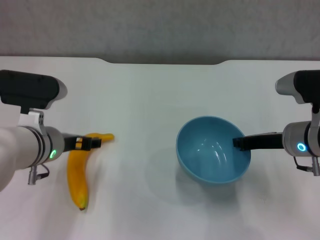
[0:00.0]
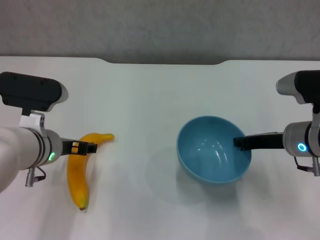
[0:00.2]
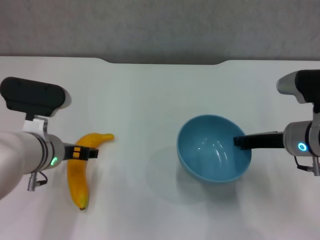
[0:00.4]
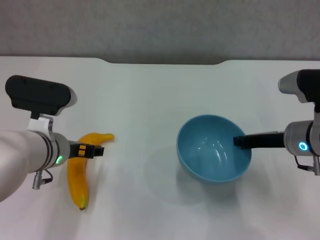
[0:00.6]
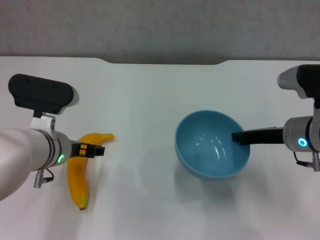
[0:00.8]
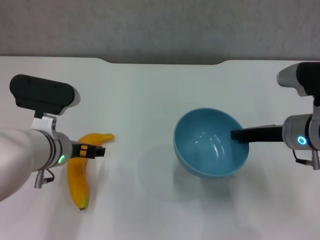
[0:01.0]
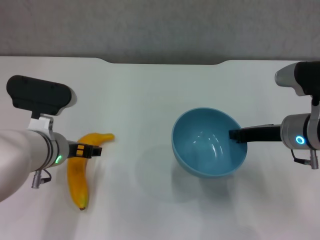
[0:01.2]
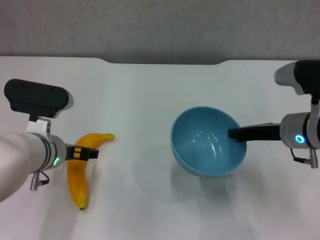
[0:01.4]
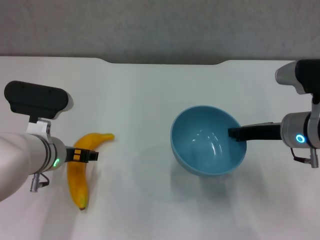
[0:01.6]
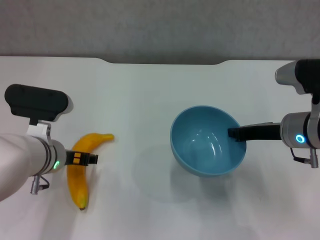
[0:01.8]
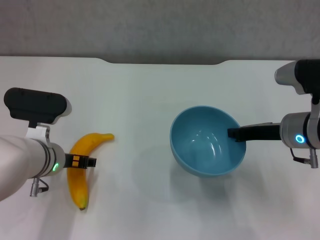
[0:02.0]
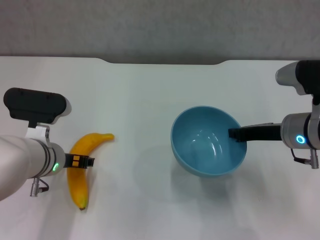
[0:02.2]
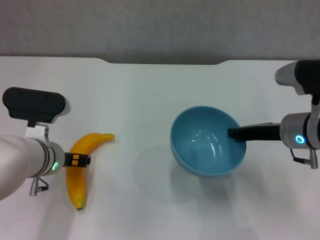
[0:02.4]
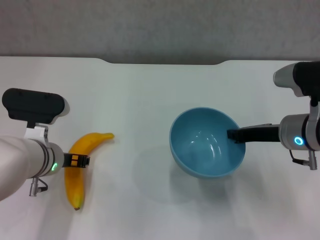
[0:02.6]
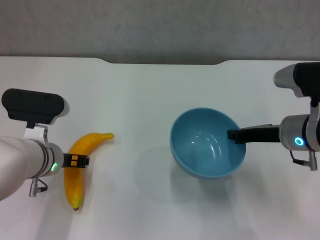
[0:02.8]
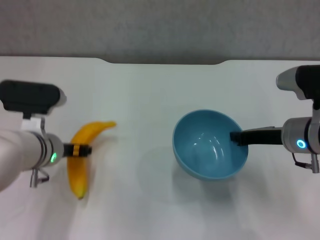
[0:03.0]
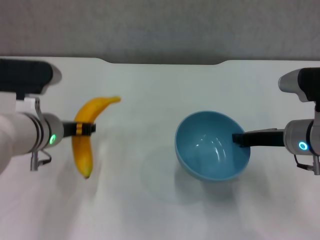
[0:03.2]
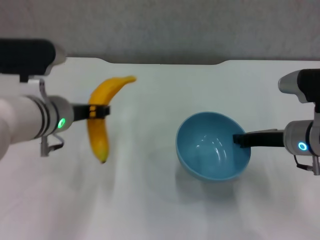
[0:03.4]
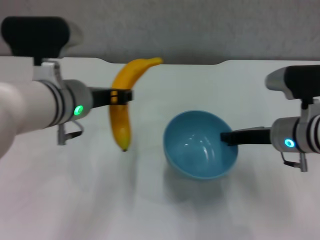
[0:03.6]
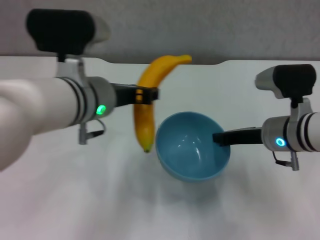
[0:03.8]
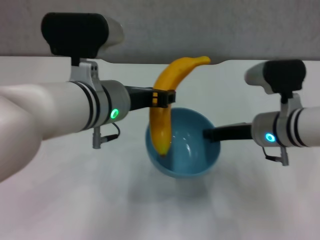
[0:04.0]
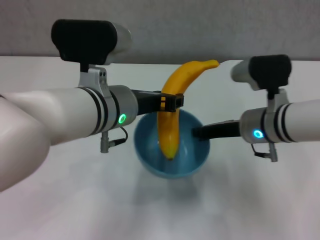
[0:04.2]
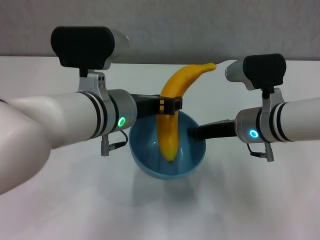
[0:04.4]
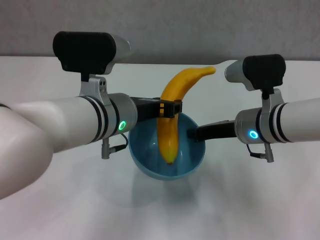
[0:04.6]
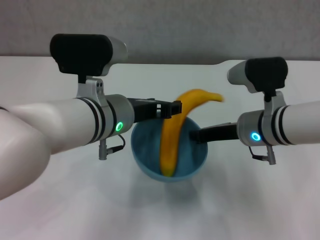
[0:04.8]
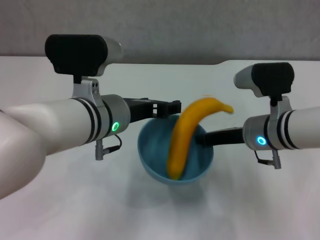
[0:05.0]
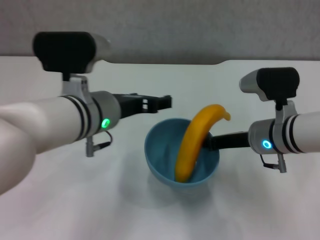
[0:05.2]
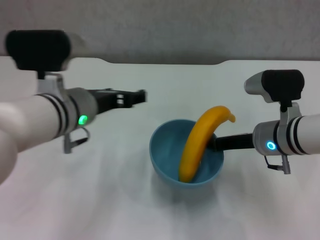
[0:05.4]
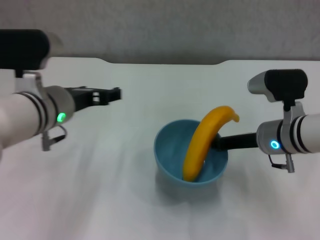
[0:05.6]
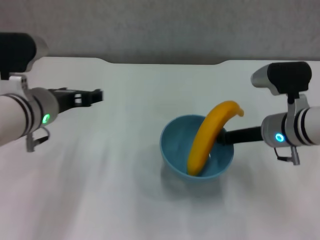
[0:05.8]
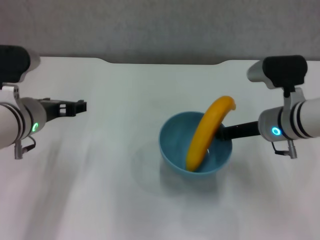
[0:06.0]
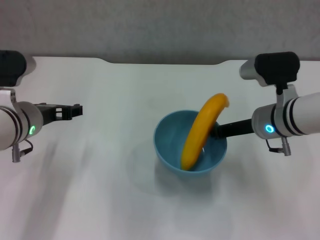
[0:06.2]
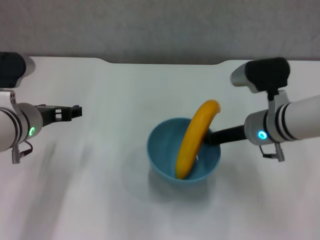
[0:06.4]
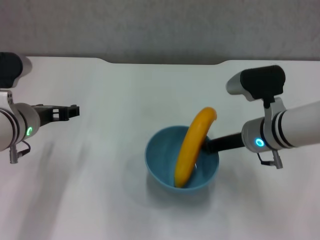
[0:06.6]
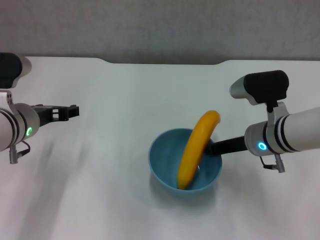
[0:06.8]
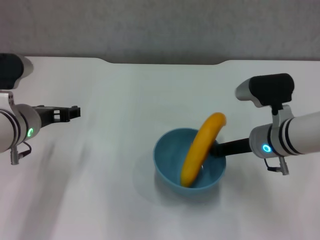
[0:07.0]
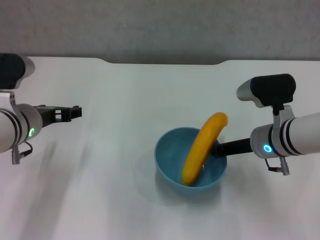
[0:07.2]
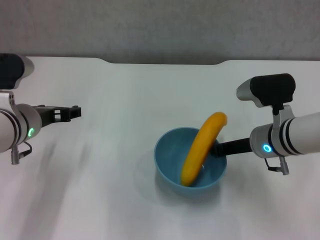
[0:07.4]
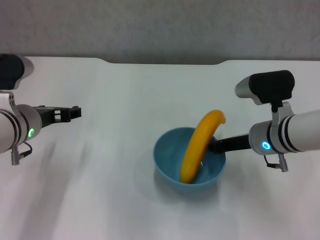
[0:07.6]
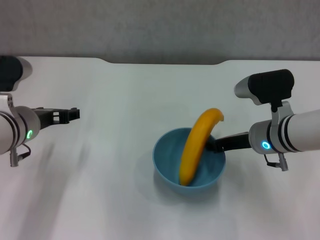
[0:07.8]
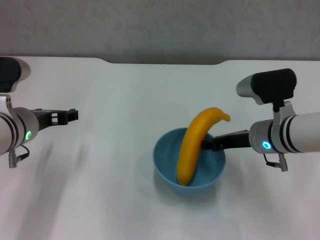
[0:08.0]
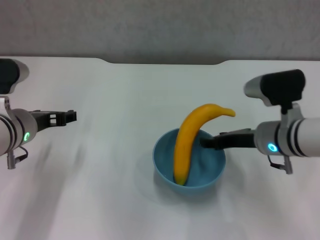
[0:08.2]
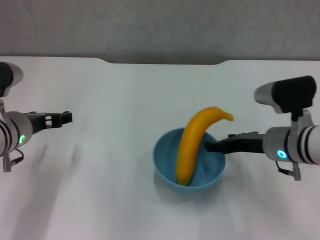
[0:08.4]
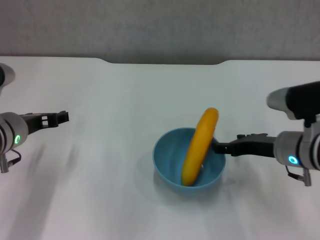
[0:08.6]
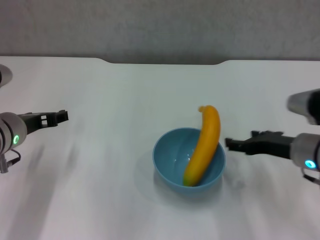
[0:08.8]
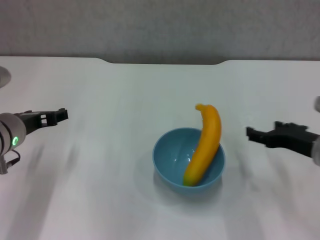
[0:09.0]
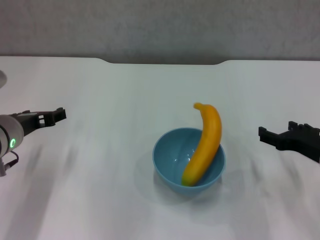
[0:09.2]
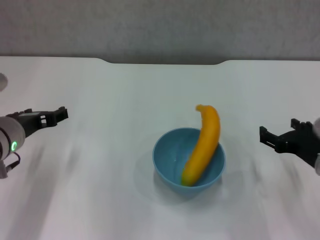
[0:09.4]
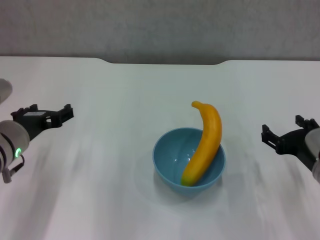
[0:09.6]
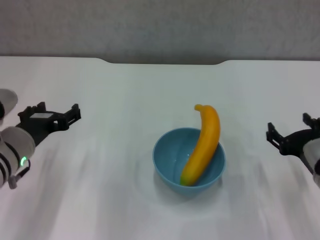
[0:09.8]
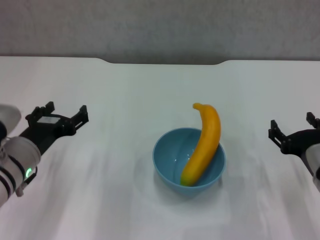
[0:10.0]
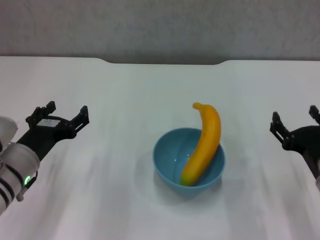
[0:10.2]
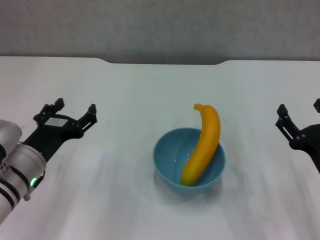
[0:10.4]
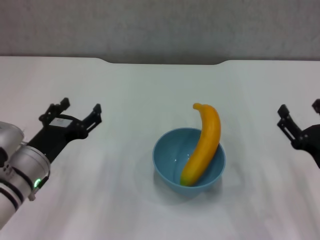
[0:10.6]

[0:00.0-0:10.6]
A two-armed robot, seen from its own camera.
Step, 0:00.0 to 0:02.6: Grasp the banana with left gripper.
Step, 0:03.0 to 0:04.8: Place the banana in the blue bowl with left gripper.
Step, 0:05.0 to 0:08.0: Place the bowl on the table with right gripper.
0:00.0 to 0:01.6: The grippers stay close to where they were, moving slightly.
0:01.6 to 0:03.0: The left gripper closes its fingers.
0:03.0 to 0:04.6: The left gripper shifts some 15 cm to the right and upward. The right gripper goes about 5 cm to the left.
0:04.6 to 0:06.0: The left gripper is displaced to the left by some 10 cm, and opens up.
0:06.0 to 0:07.6: The grippers stay close to where they were, moving slightly.
0:07.6 to 0:09.0: The right gripper moves to the right and backward, some 10 cm, and opens its fingers.
0:09.0 to 0:10.6: The left gripper goes about 5 cm downward; the right gripper shifts about 10 cm backward and downward.
